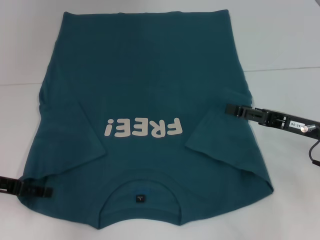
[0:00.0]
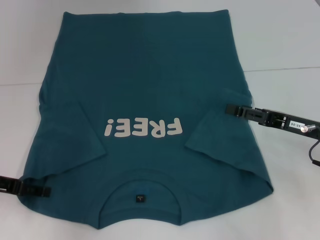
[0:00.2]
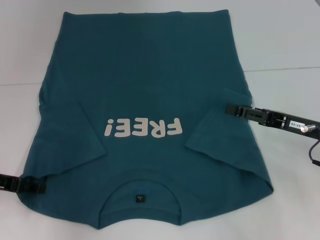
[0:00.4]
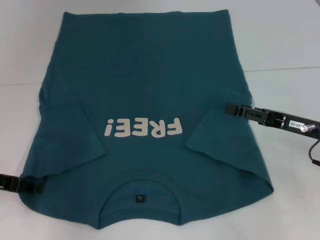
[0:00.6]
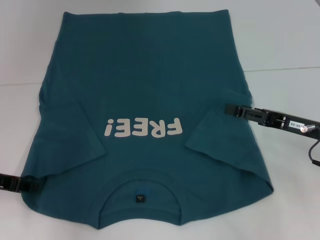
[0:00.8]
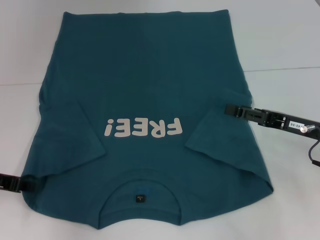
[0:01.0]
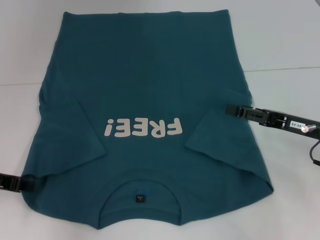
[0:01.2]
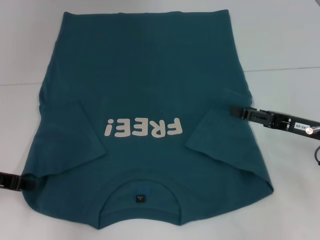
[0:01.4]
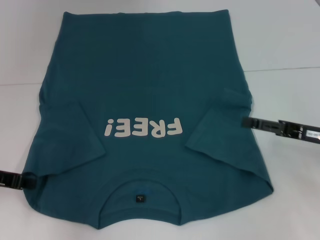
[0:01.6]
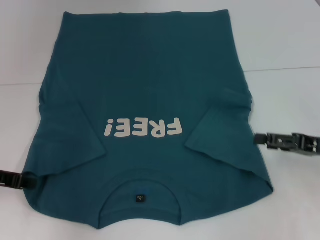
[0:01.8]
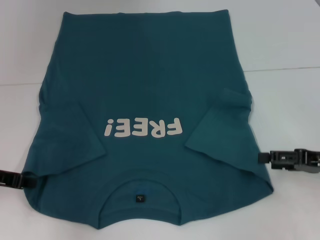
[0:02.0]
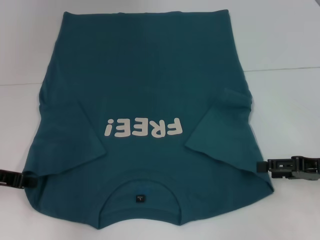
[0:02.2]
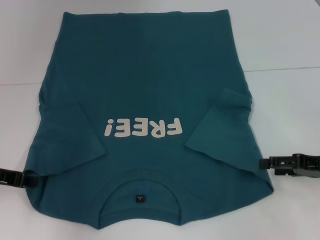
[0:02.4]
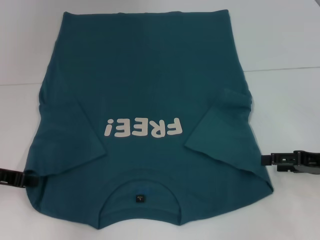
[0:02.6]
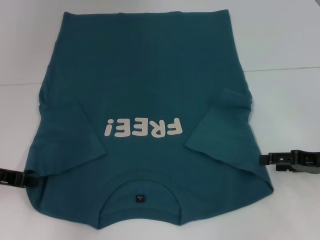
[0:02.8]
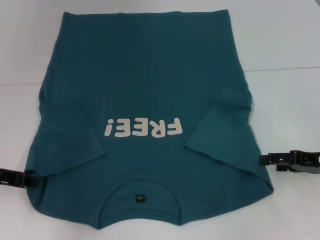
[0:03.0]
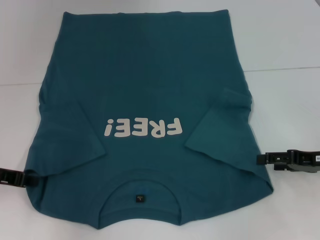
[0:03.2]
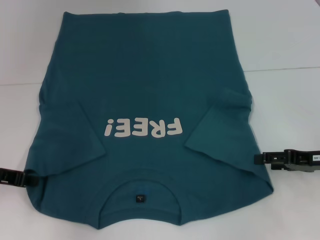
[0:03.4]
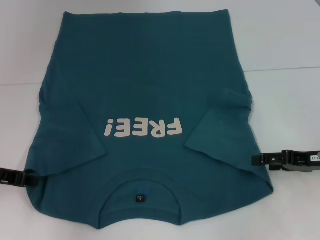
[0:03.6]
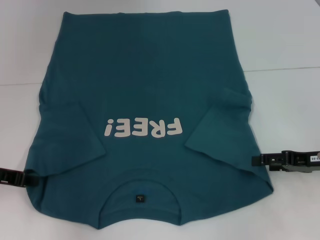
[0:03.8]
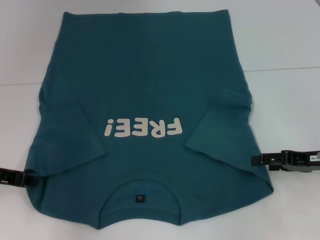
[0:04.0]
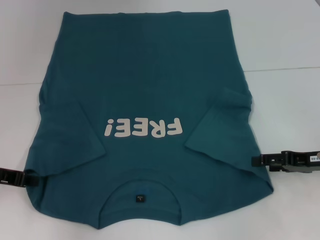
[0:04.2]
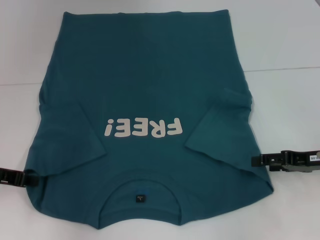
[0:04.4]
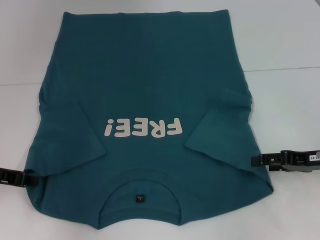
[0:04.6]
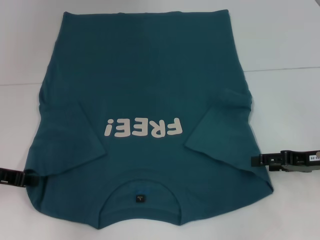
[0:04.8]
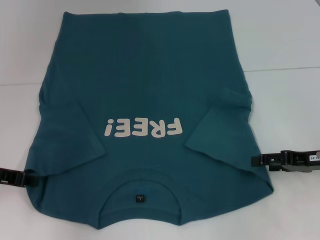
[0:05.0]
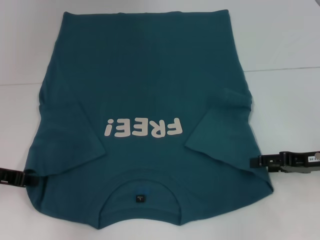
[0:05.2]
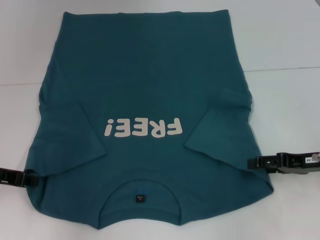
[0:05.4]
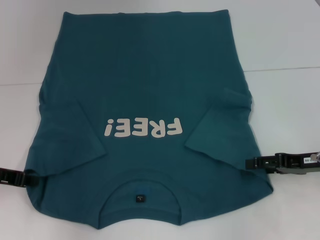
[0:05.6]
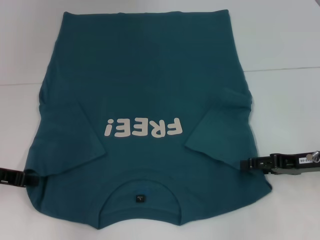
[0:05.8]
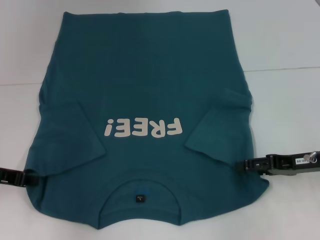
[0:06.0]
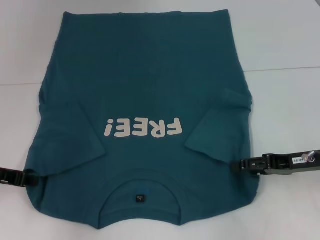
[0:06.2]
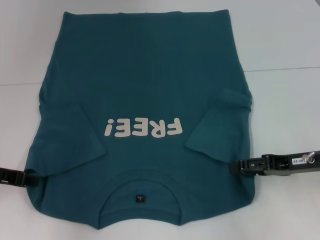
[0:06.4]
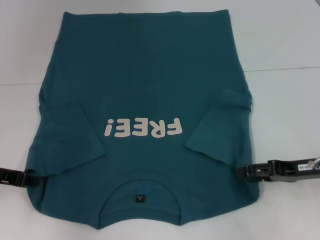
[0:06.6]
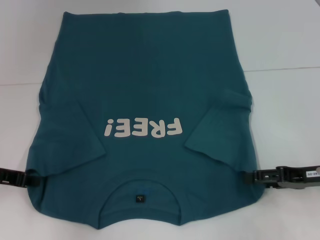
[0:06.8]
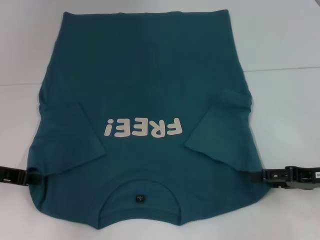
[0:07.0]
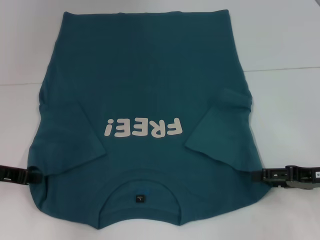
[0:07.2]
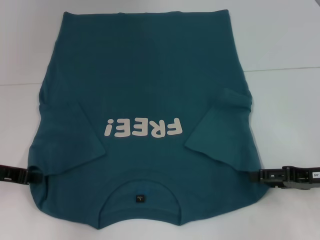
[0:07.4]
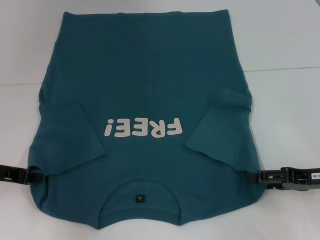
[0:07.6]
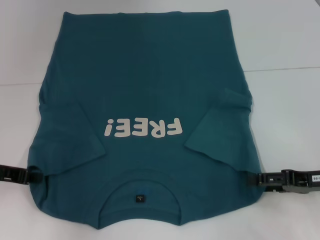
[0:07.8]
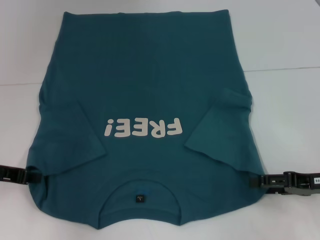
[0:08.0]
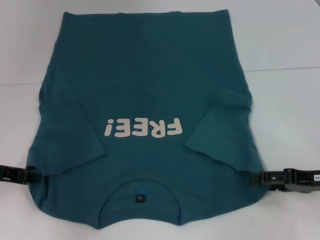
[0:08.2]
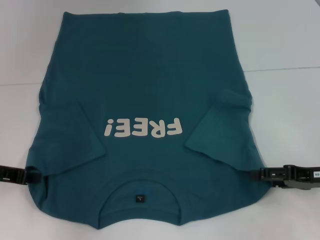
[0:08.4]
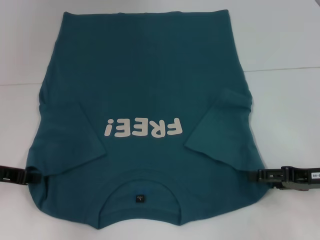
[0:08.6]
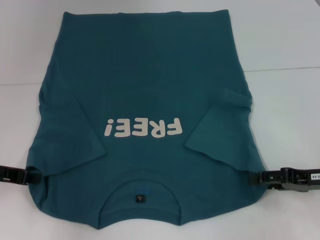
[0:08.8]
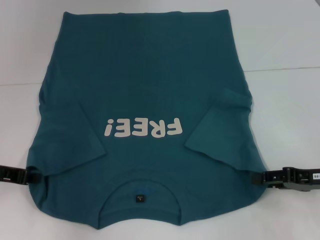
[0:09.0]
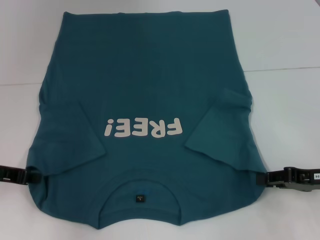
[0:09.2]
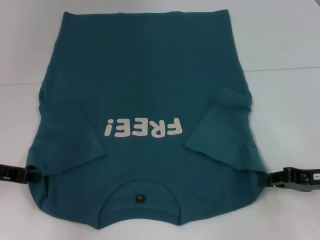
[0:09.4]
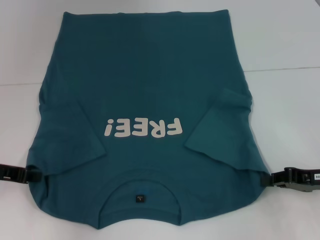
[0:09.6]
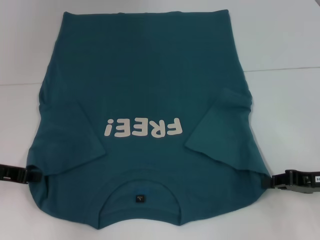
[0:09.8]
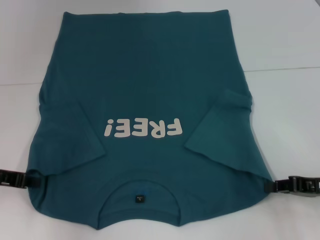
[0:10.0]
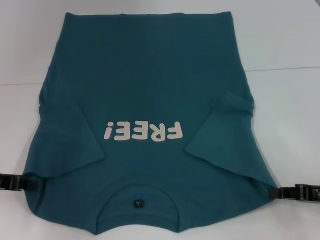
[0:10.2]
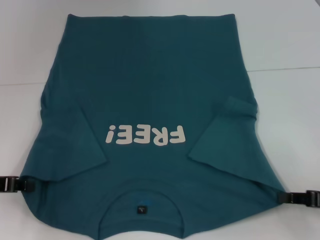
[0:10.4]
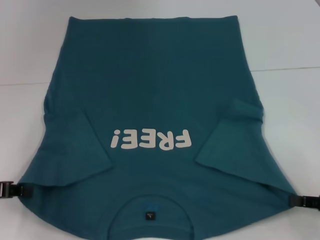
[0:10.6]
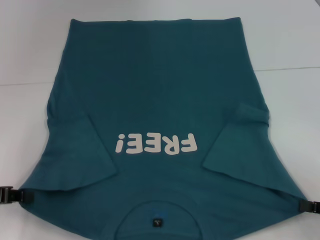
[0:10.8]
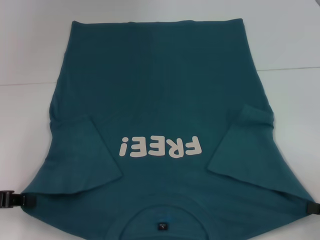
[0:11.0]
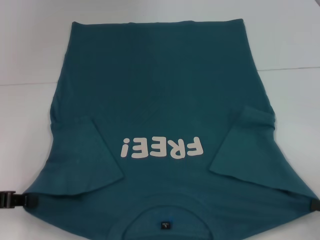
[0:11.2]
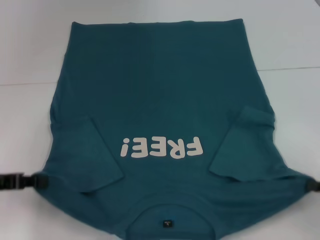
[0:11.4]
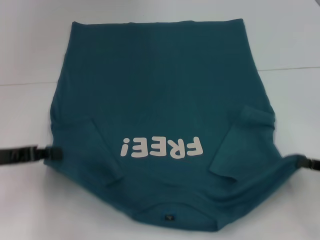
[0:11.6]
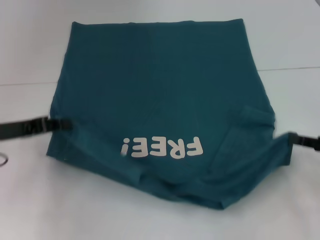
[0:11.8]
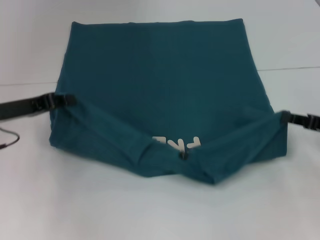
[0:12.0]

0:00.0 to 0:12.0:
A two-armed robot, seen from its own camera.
Step, 0:02.0 to 0:10.0: Grab the bottom right corner with your right hand.
0:00.0 to 0:01.6: The left gripper closes up.
0:04.4 to 0:07.6: The grippers move only a little.
0:07.6 to 0:09.0: Both grippers stay put.
0:09.0 to 0:10.4: The right gripper moves some 5 cm, and closes its fingers.
0:10.4 to 0:12.0: The left gripper shifts some 10 cm forward and to the right. The right gripper travels forward by about 5 cm.

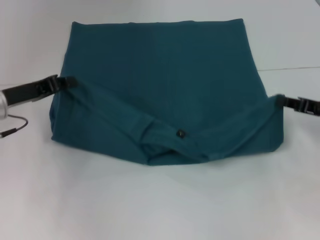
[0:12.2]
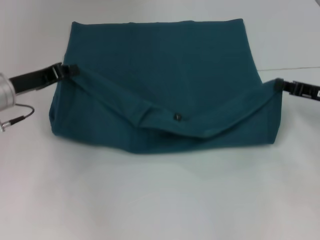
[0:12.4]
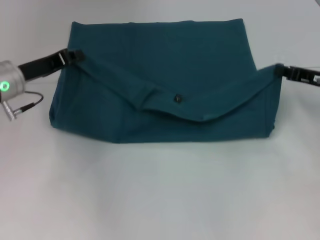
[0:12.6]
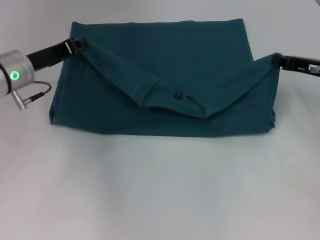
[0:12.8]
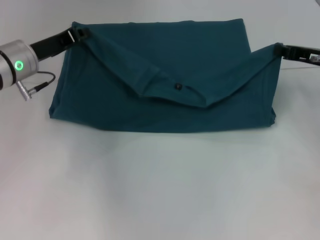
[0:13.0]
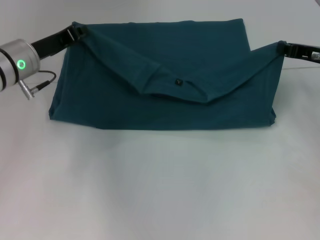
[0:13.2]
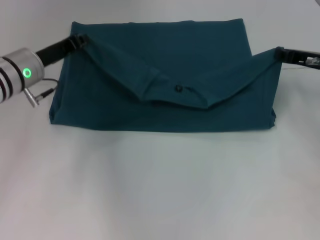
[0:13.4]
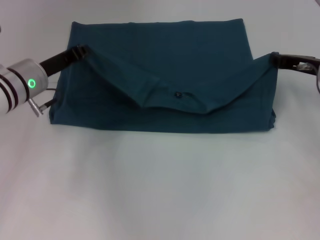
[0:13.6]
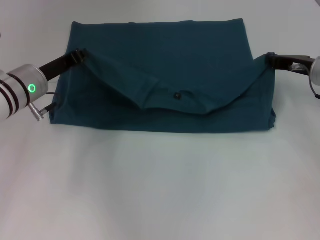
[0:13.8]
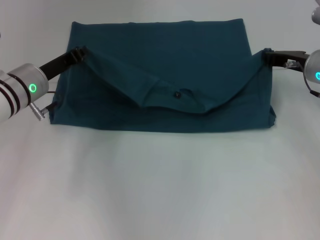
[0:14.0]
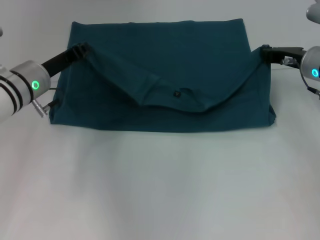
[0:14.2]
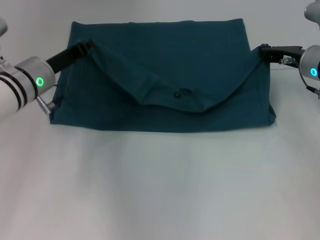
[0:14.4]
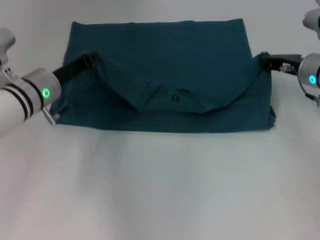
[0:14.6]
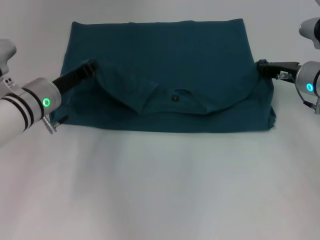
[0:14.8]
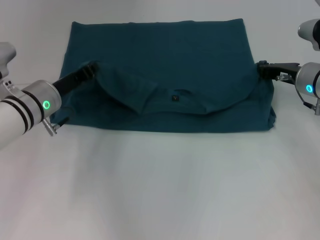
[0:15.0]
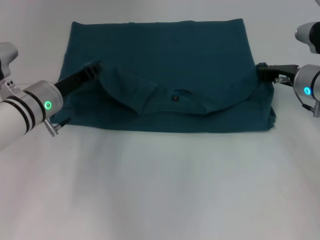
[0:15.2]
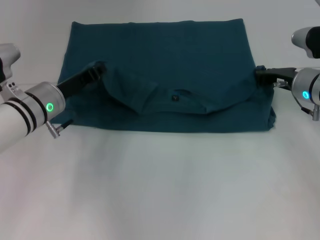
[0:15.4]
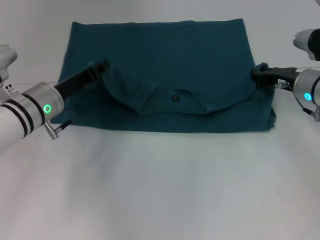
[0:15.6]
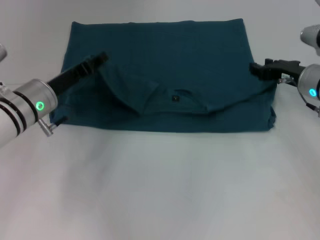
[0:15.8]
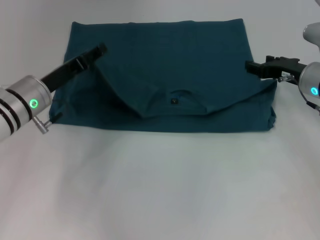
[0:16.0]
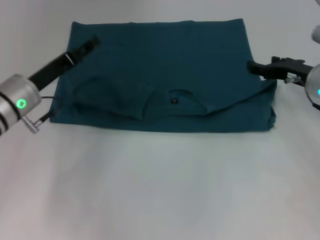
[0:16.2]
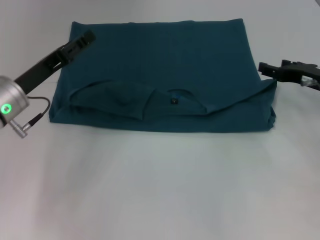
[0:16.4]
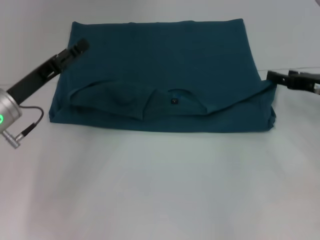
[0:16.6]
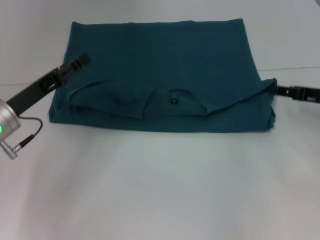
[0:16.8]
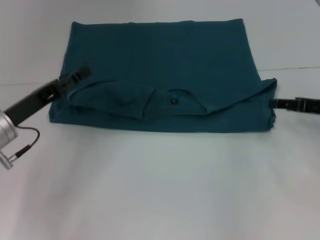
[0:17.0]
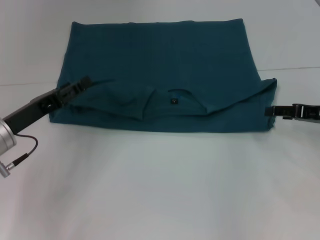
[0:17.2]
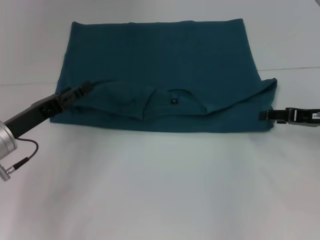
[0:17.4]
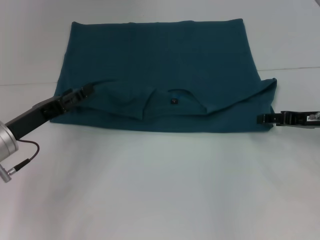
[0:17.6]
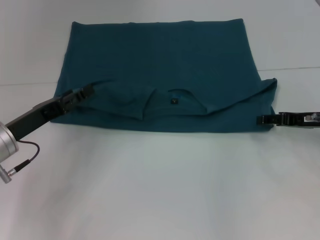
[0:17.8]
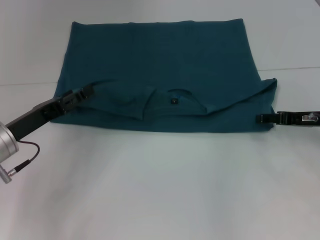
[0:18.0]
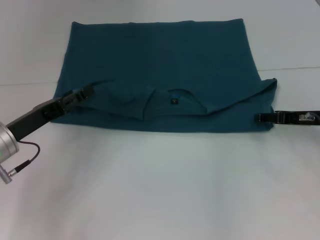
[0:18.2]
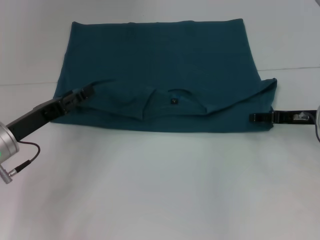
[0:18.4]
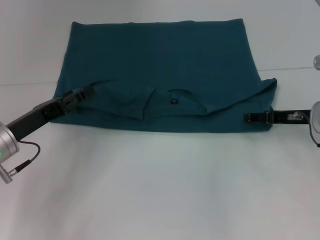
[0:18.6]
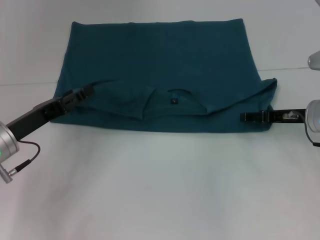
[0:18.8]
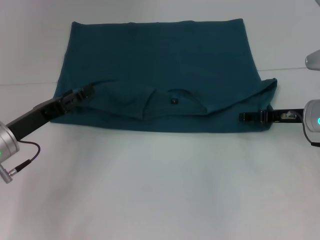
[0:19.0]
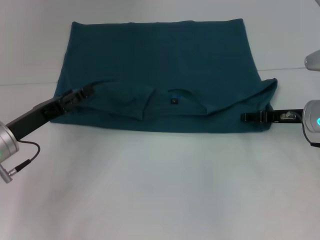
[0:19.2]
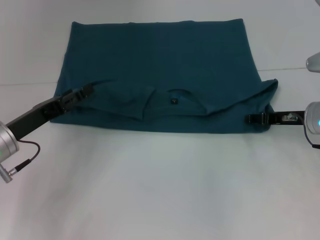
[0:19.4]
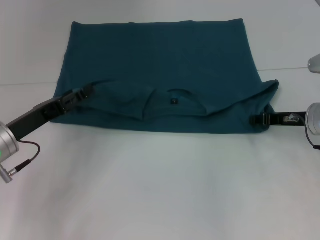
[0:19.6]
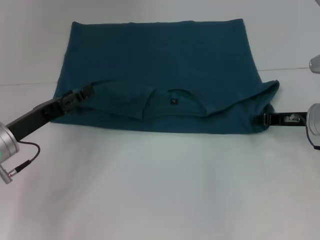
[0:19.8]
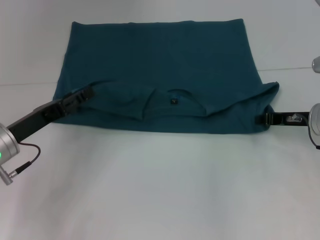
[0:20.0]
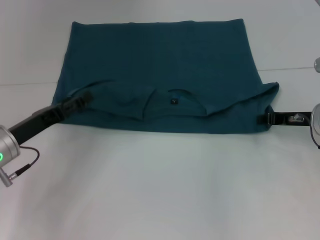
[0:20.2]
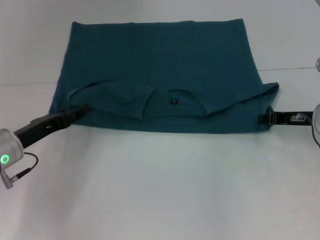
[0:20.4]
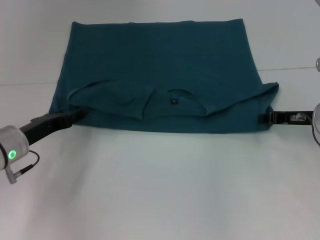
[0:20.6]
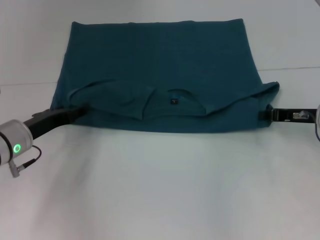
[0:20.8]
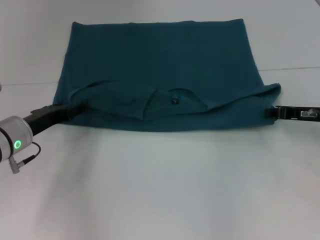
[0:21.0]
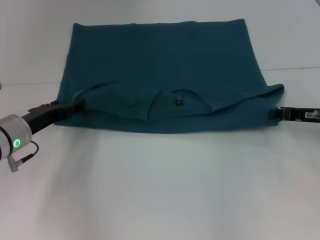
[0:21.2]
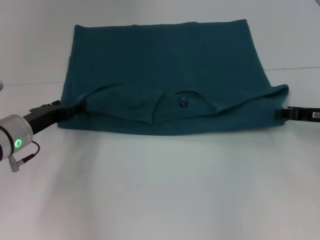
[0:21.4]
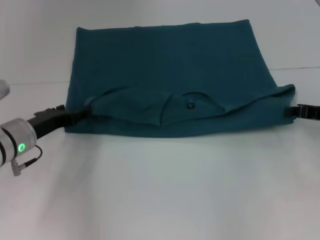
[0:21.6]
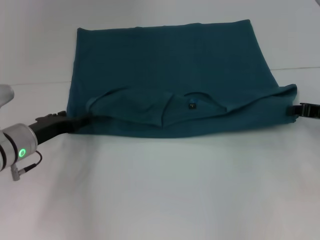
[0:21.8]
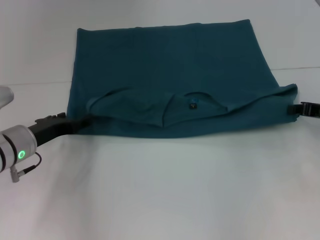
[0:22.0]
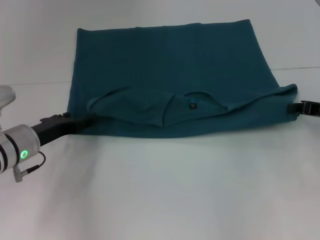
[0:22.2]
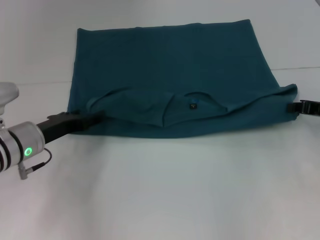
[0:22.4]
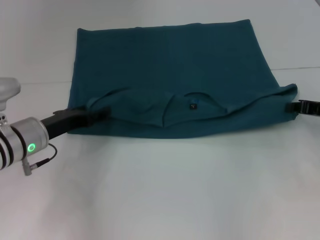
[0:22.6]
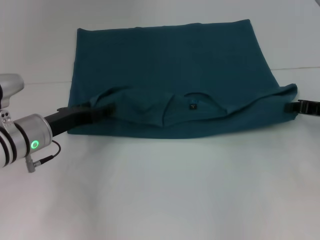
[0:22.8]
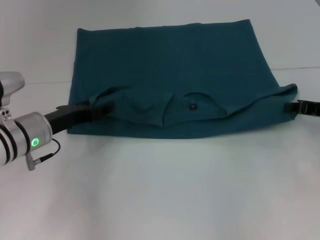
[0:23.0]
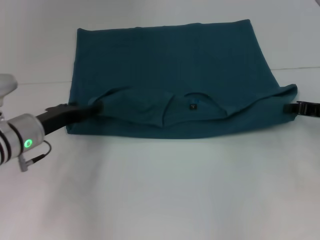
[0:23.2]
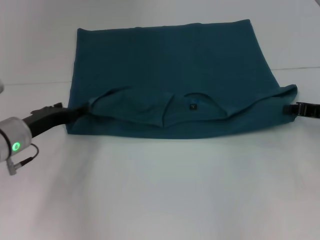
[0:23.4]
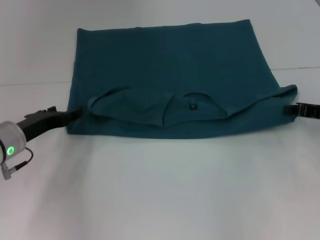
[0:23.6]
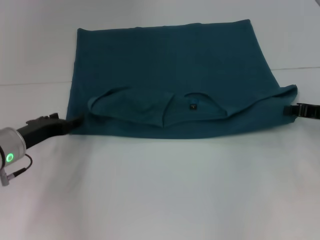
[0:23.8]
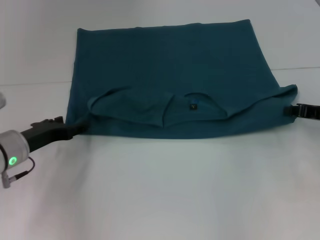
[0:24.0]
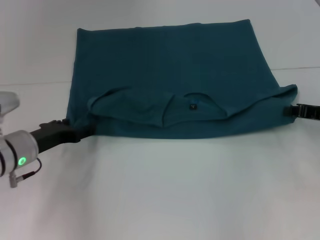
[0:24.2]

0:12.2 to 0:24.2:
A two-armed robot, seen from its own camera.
Step, 0:12.2 to 0:16.6: Fold the clothes to the left.
Step, 0:12.2 to 0:16.6: Fold the clothes to the right.
0:12.2 to 0:13.8: The left gripper moves to the right, some 5 cm. The right gripper moves forward, some 10 cm.
0:13.8 to 0:15.2: The grippers move only a little.
0:15.2 to 0:16.6: The right gripper heads to the right and backward, covering roughly 10 cm, and opens up; the left gripper travels to the left by roughly 5 cm, and opens its fingers.
0:18.2 to 0:19.8: The right gripper closes.
0:21.2 to 0:24.2: The grippers make only small movements.
